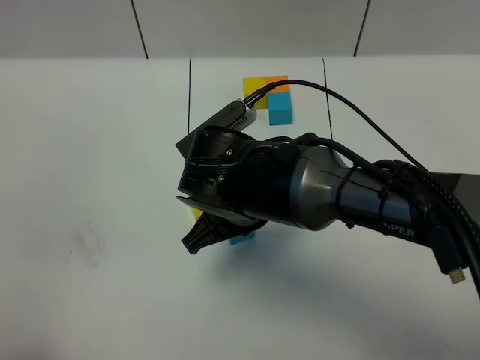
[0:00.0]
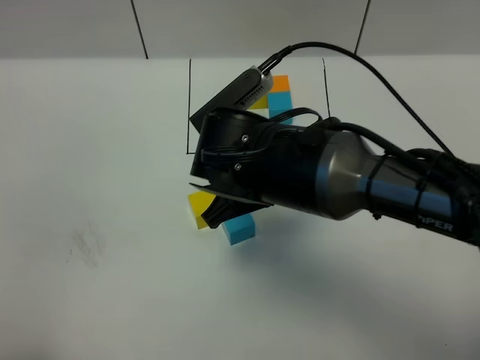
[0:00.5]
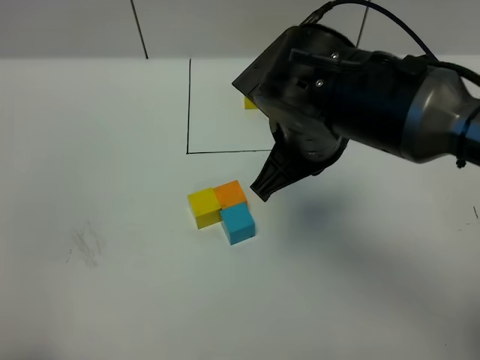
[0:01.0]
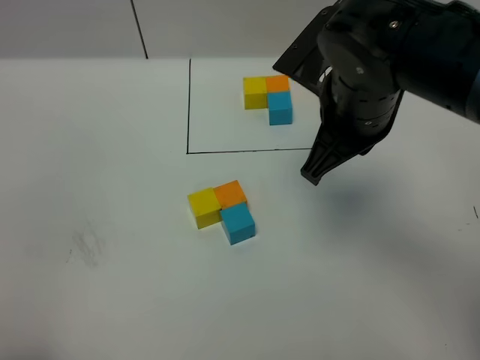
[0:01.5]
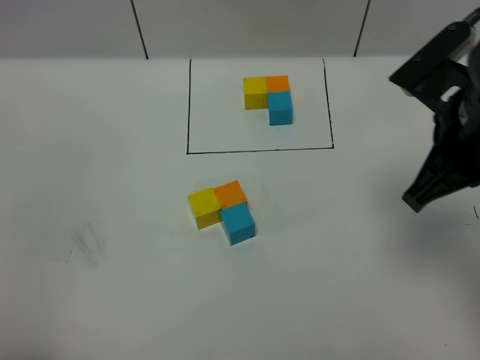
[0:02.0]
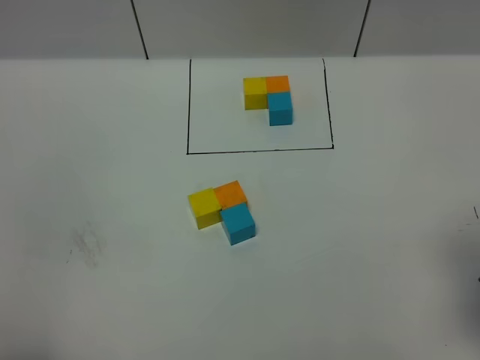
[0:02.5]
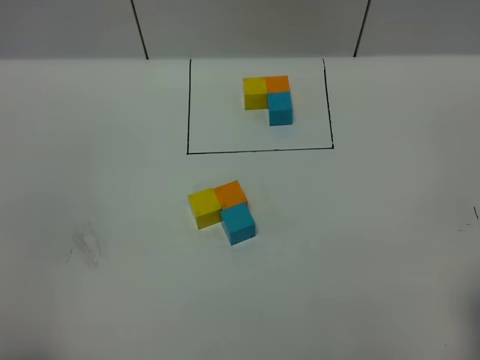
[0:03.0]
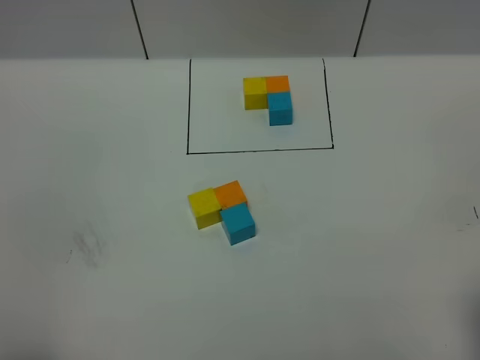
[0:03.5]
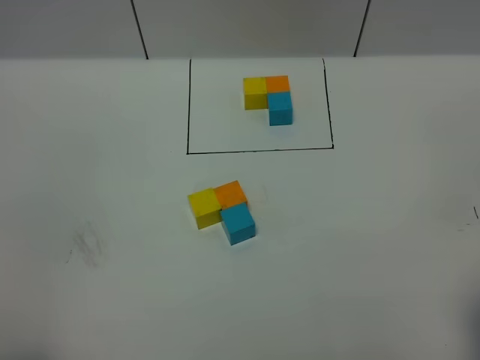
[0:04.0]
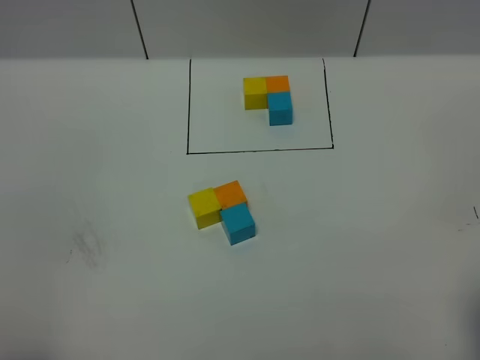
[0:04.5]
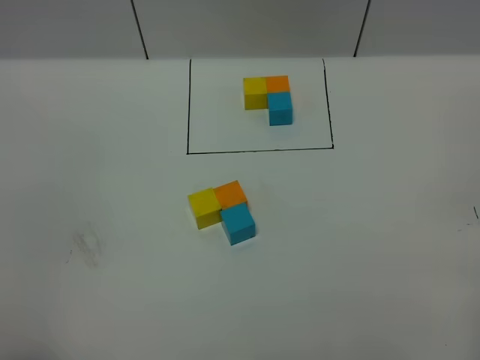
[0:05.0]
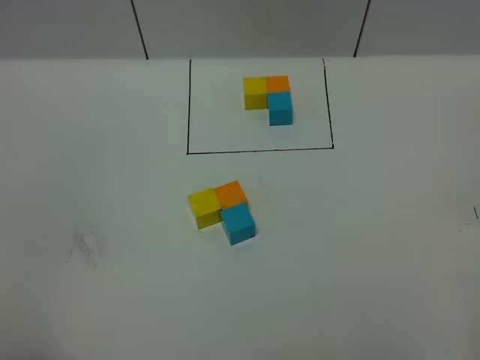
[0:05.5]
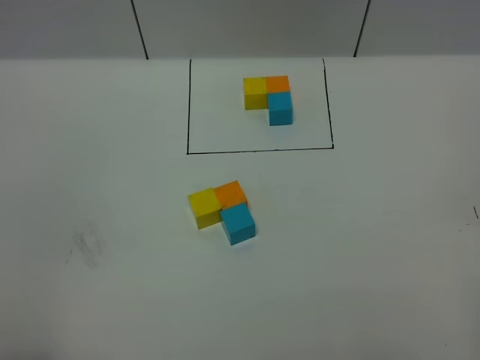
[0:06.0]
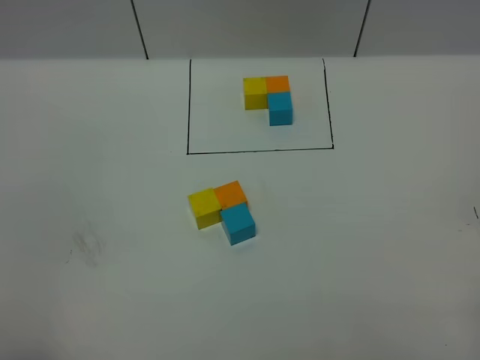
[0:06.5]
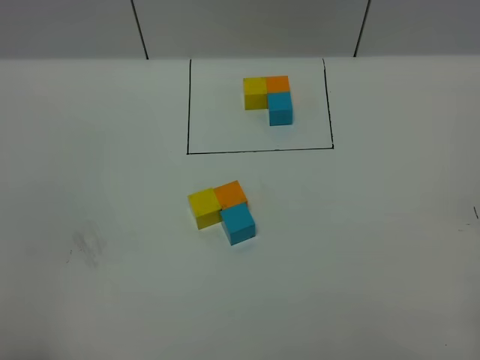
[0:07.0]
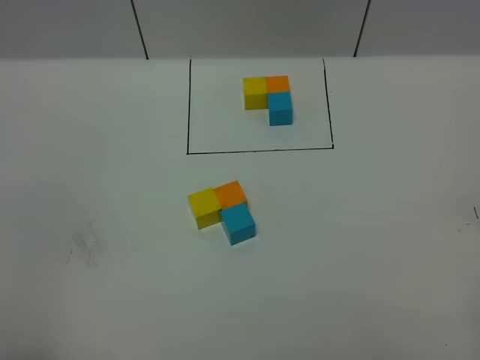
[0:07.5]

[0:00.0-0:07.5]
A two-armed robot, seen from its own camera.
Task of the whole recording: According to the building block template in front, assemble the scattered blocks together.
0.0 to 2.0 s: The right gripper goes about 25 cm to the right and upward.
2.0 to 4.0 s: The right gripper goes about 20 cm backward and to the right.

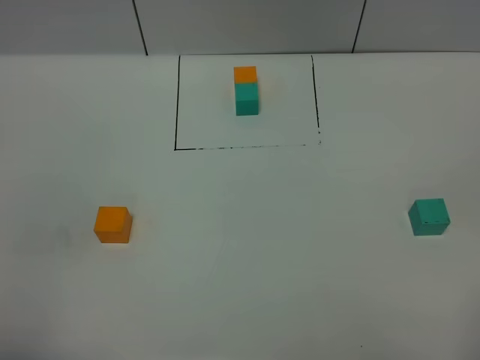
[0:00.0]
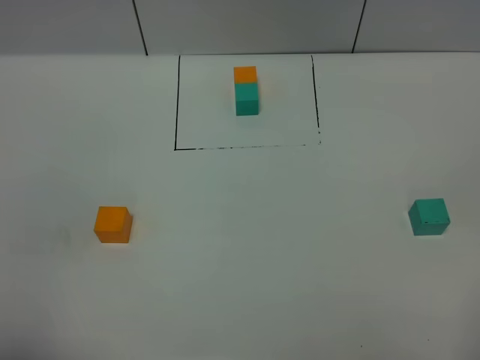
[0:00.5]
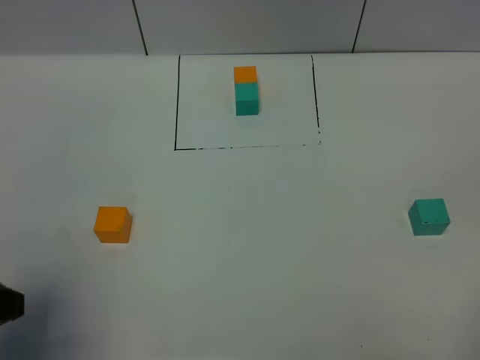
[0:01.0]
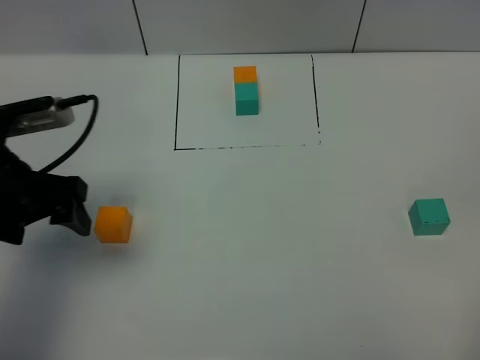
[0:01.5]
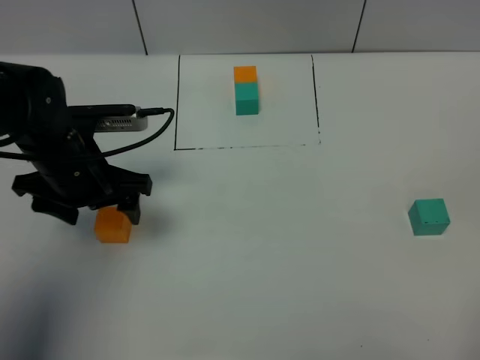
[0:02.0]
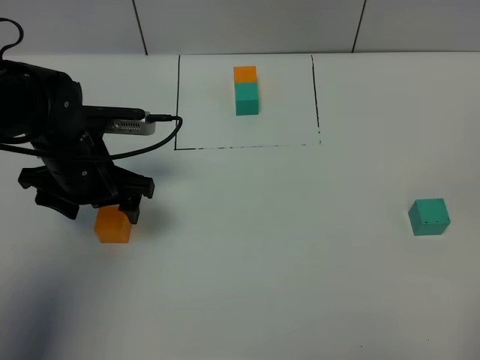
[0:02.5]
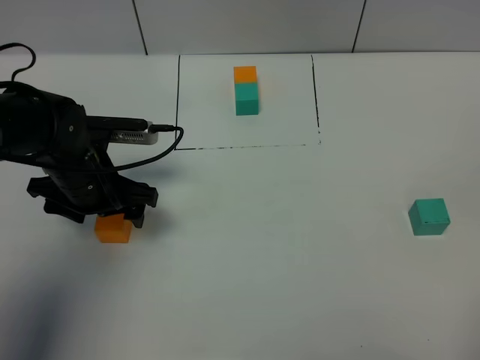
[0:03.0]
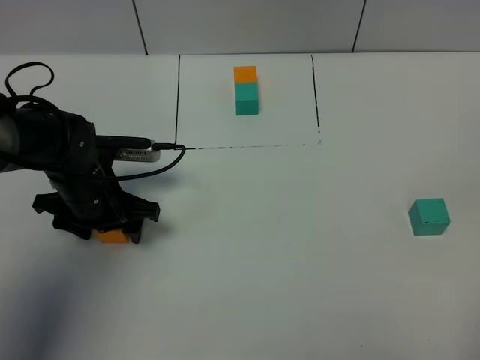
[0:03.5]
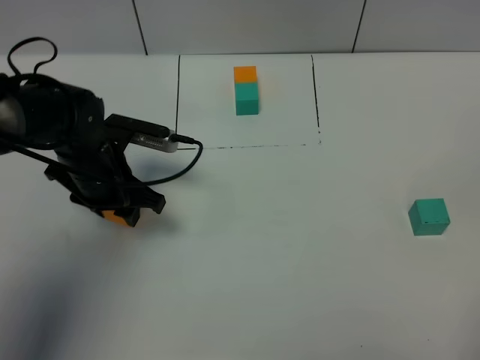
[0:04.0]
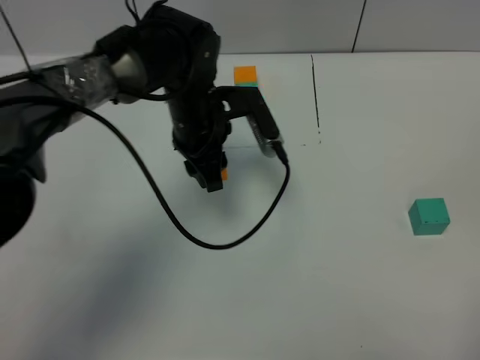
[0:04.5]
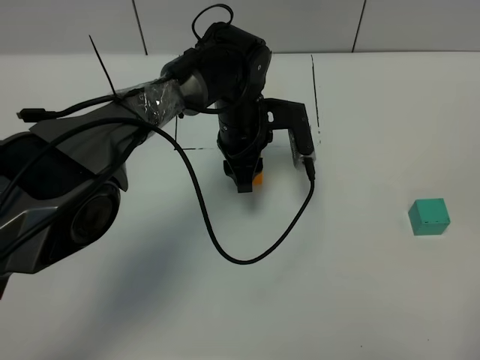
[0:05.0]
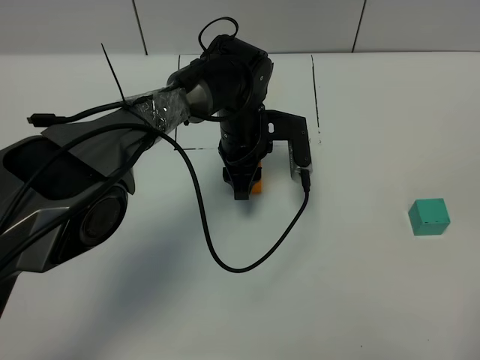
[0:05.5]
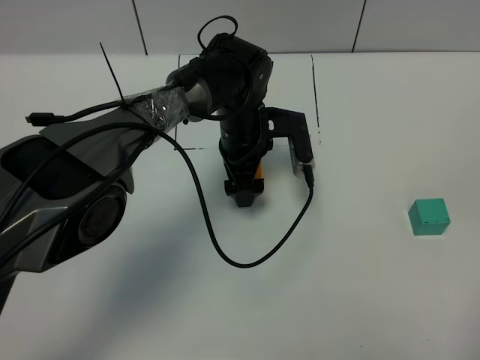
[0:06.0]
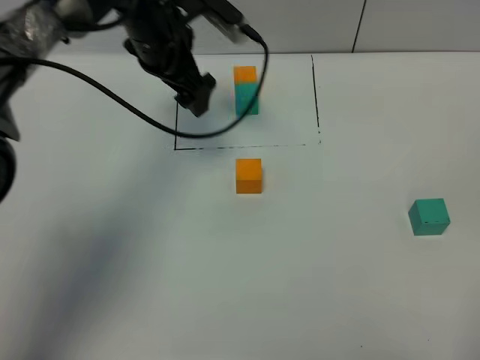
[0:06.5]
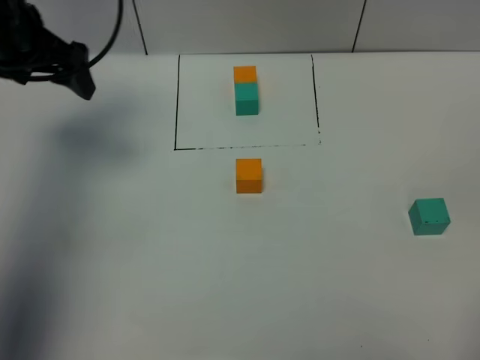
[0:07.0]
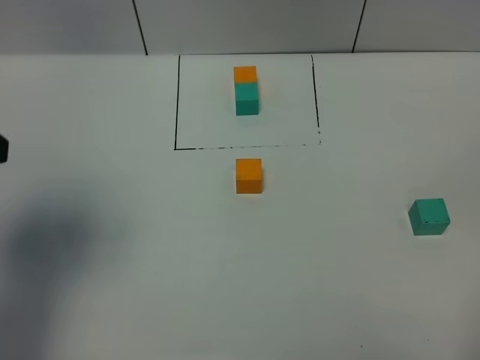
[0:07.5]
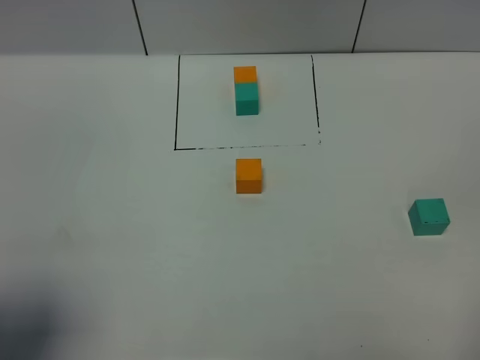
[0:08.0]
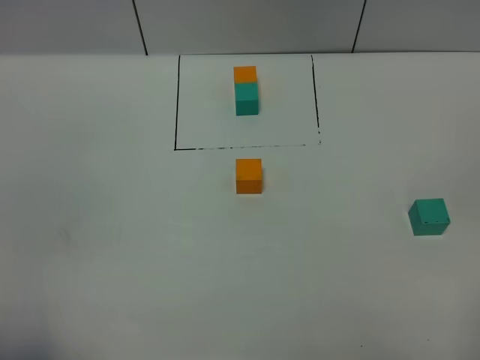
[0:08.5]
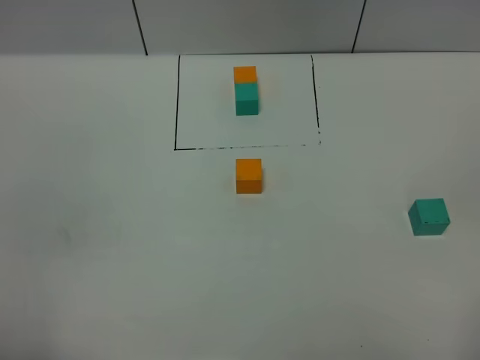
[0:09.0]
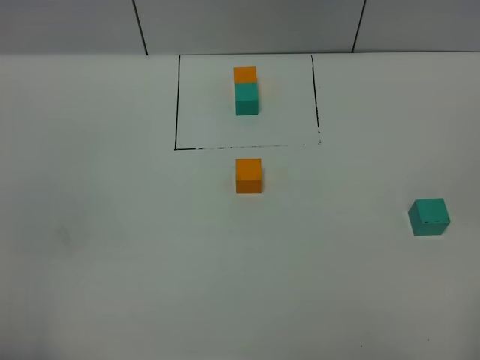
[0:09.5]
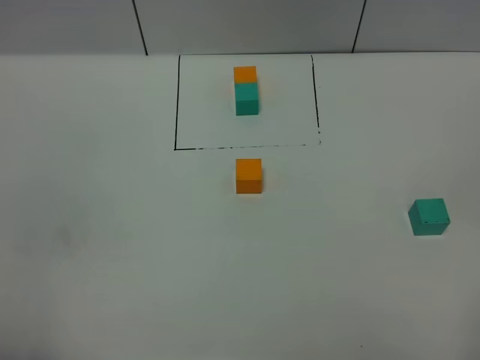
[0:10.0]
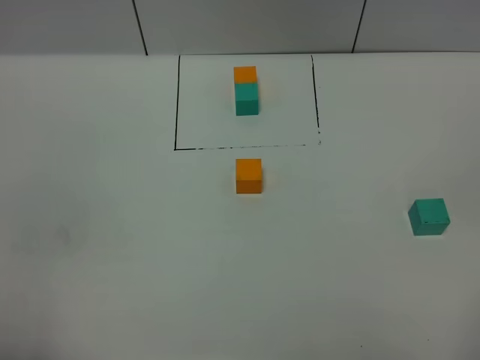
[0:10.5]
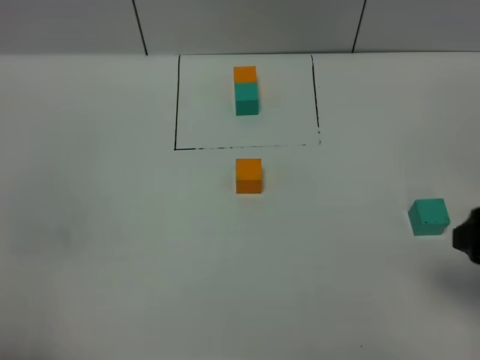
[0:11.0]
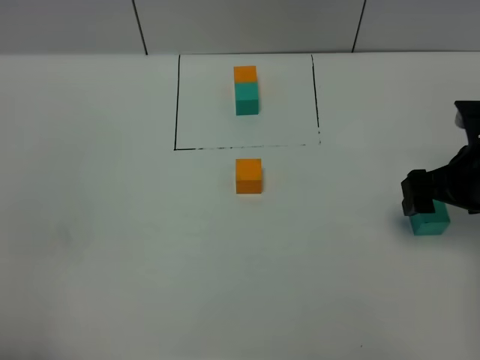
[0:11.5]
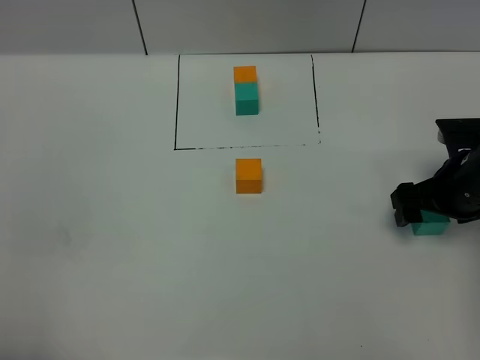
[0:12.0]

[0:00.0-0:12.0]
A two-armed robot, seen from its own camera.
Task of the whole recording: According to the building block template in front, assemble the scattered blocks together.
Step, 1.0 to 6.0 s: Put the orange cube in the center of the table.
0.0 to 2.0 s: The left gripper goes about 30 cm forward.
2.0 to 4.0 s: The left gripper closes its fingers.
4.0 to 6.0 s: The left gripper is displaced to the right and forward by approximately 20 cm, and opens up.
6.0 to 8.0 s: The left gripper travels backward, to the left and upward by some 50 cm.
8.0 to 10.0 s: The left gripper moves backward, roughly 10 cm, and closes up.
10.0 to 12.0 s: The right gripper is displaced forward and downward by about 35 cm.

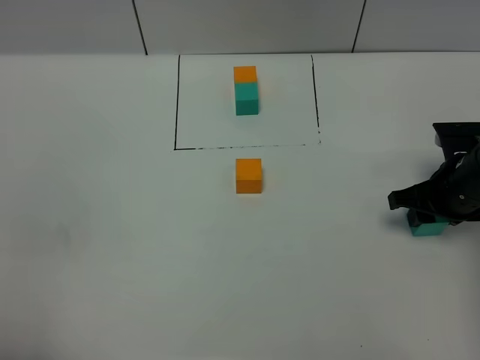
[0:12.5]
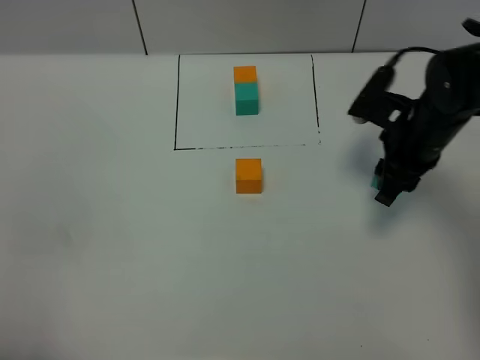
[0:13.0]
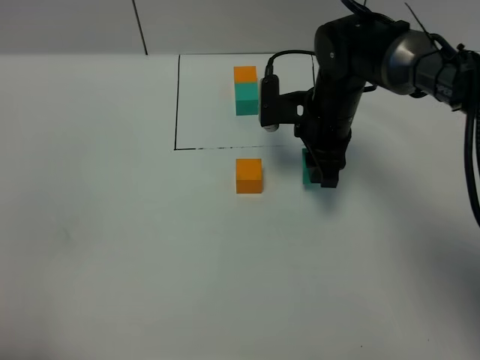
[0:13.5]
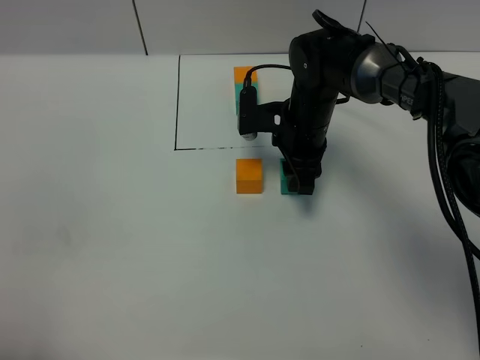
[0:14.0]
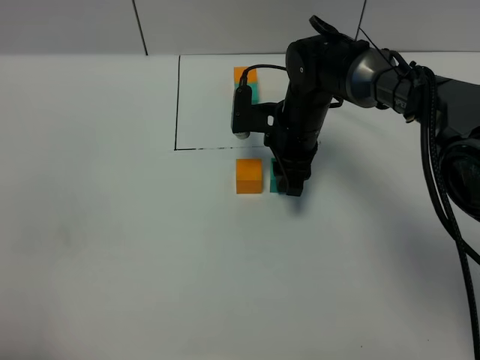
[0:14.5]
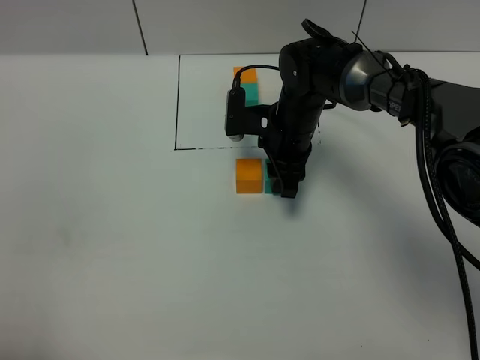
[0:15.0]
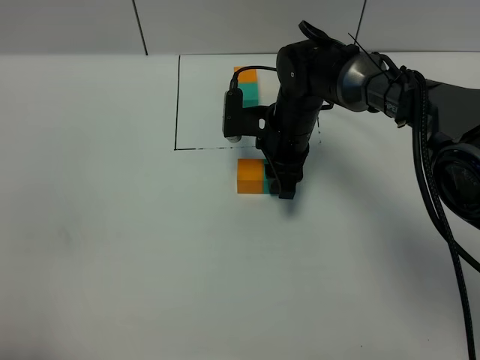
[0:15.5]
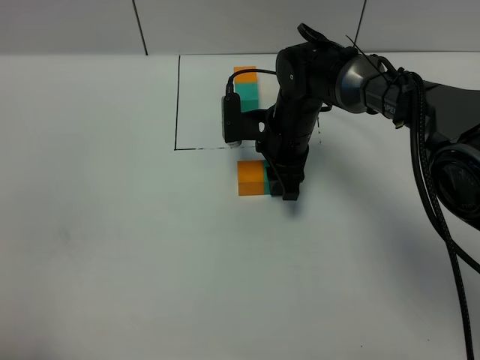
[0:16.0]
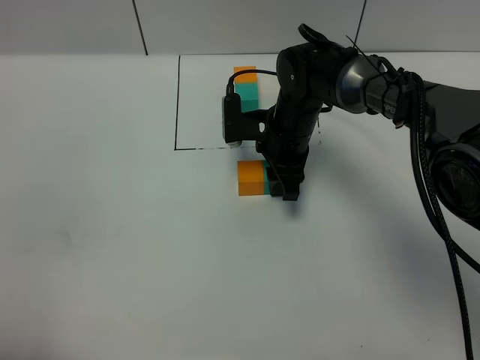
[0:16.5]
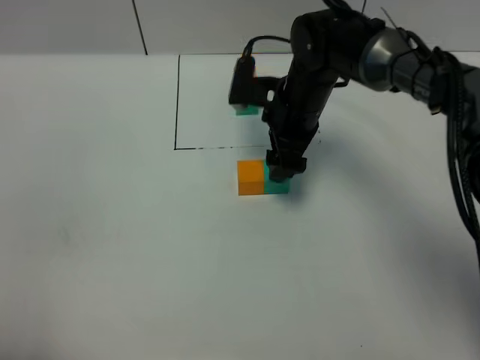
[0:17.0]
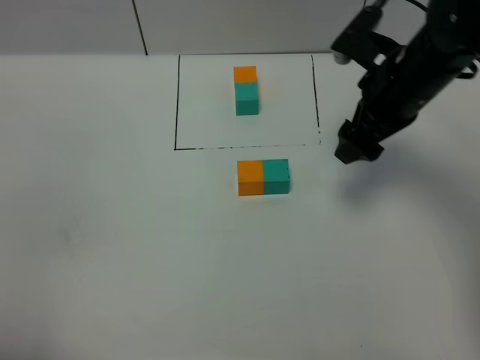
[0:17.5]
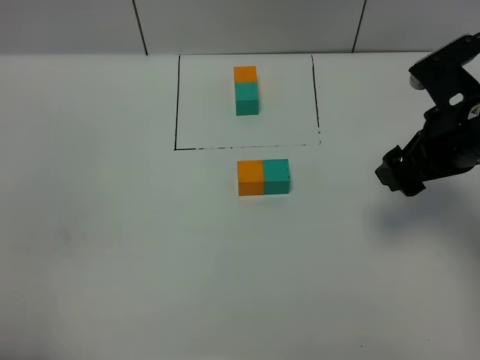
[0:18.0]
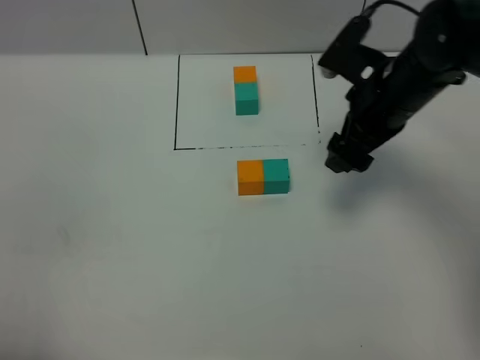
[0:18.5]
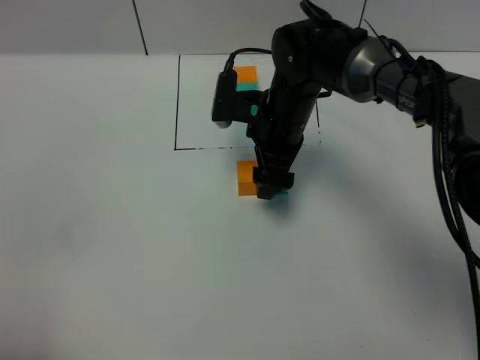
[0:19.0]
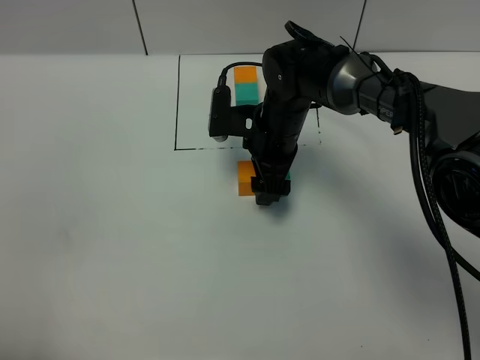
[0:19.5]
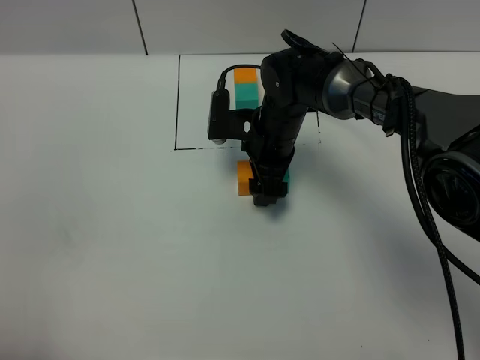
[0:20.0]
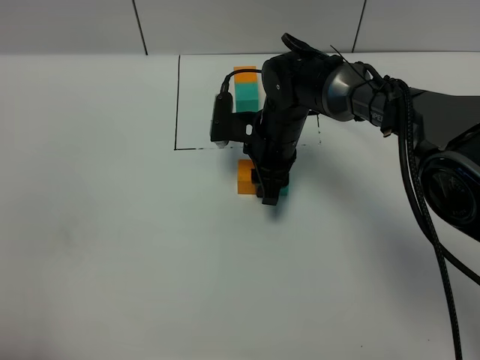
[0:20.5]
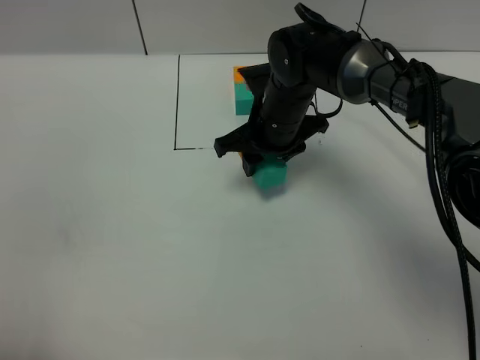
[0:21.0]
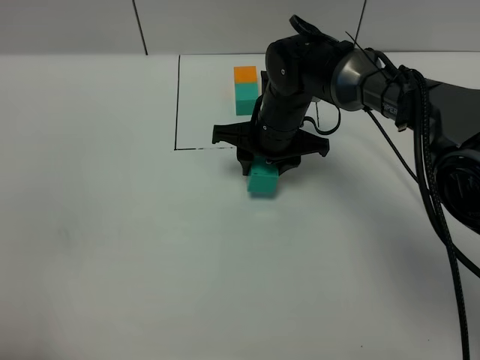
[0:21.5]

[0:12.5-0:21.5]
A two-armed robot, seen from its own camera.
Task of the whole recording: According to the building block template in front, assemble the scattered blocks together.
Step, 12.5 to 16.5 s: Put the green cube on the right of the orange cube.
12.5 to 14.5 s: The right gripper travels to the left and forward by about 25 cm.
14.5 to 17.0 s: The right gripper opens its fingers.
17.0 to 19.5 s: The right gripper travels to the right and back again, roughly 15 cm each way.
19.5 to 21.5 s: The right gripper closes up.
